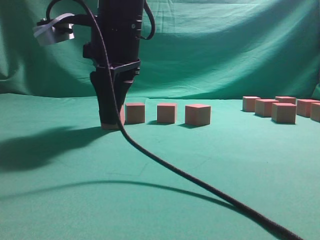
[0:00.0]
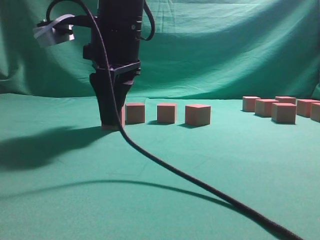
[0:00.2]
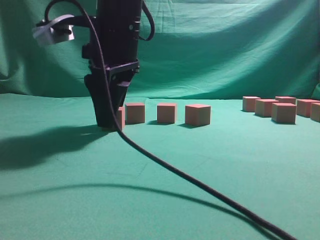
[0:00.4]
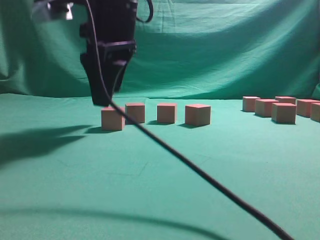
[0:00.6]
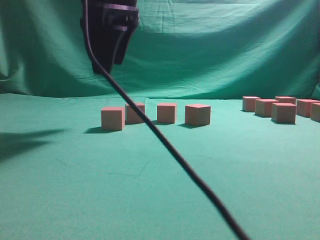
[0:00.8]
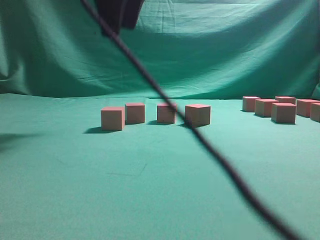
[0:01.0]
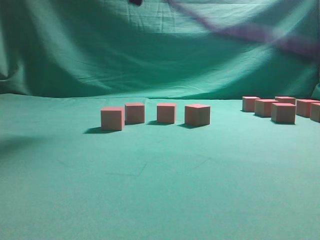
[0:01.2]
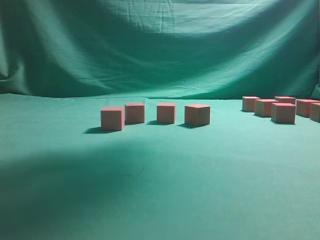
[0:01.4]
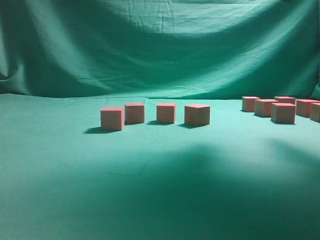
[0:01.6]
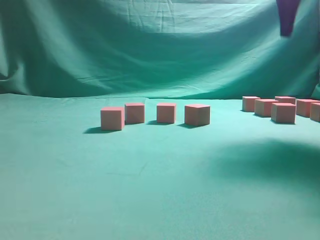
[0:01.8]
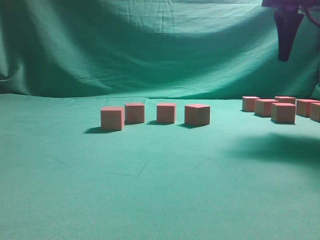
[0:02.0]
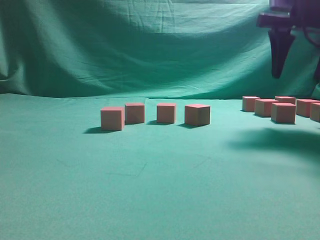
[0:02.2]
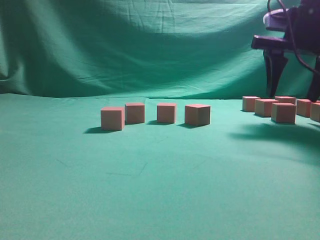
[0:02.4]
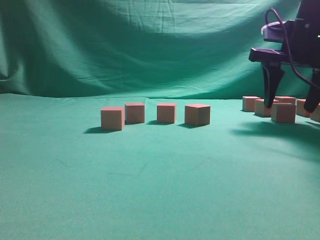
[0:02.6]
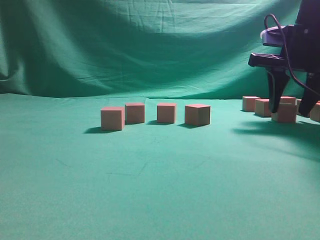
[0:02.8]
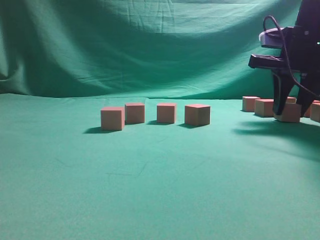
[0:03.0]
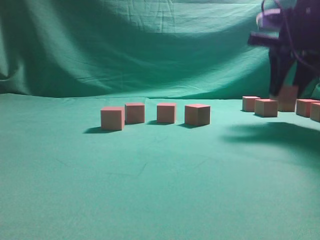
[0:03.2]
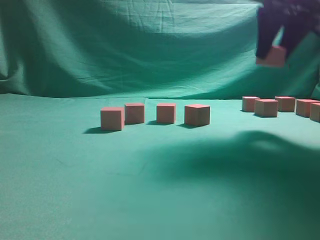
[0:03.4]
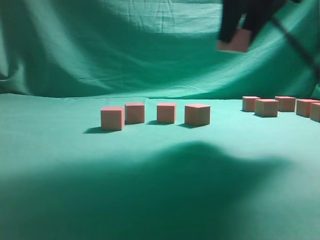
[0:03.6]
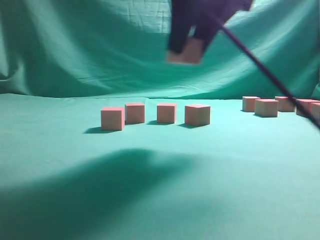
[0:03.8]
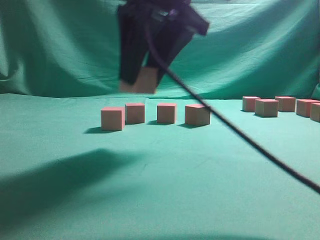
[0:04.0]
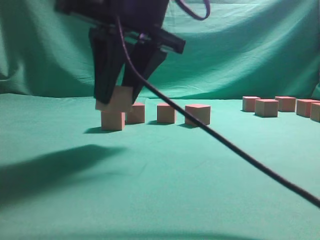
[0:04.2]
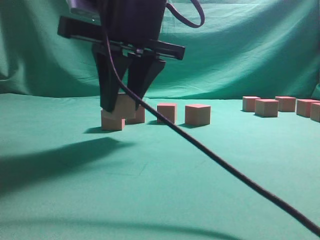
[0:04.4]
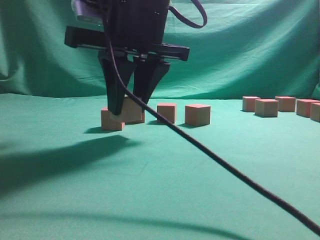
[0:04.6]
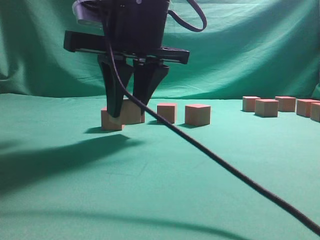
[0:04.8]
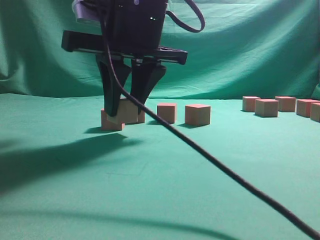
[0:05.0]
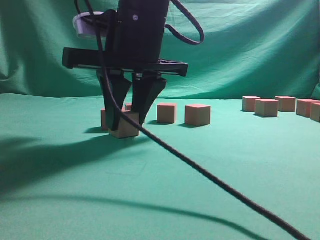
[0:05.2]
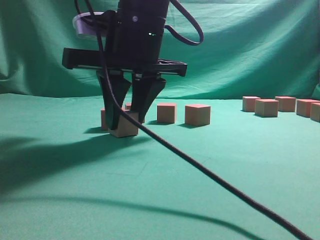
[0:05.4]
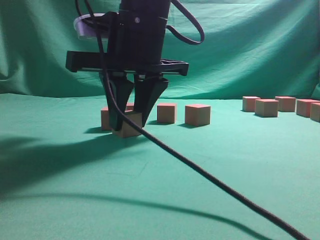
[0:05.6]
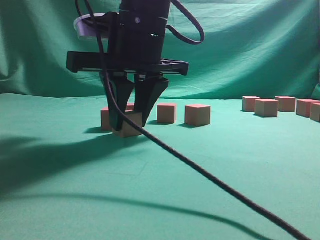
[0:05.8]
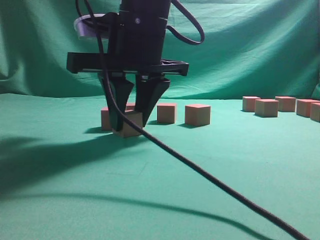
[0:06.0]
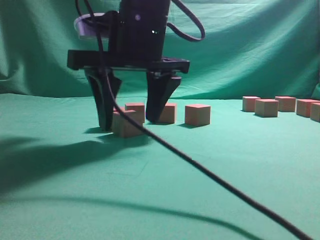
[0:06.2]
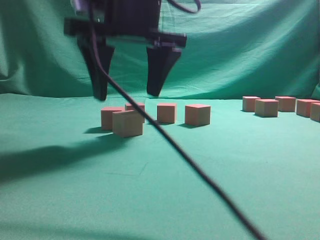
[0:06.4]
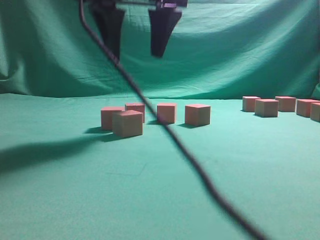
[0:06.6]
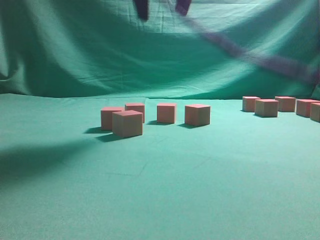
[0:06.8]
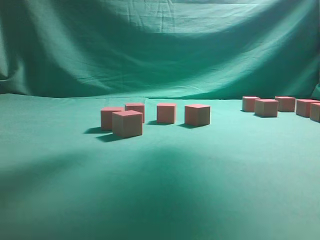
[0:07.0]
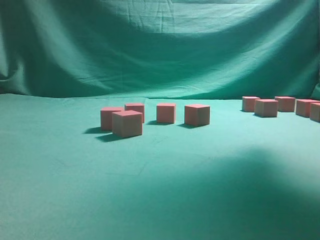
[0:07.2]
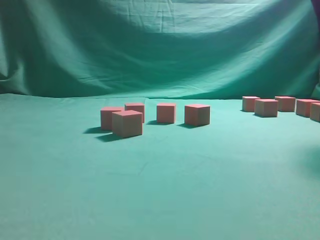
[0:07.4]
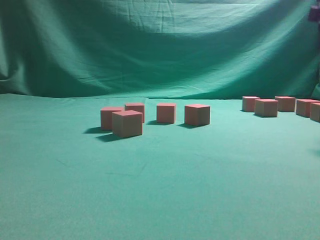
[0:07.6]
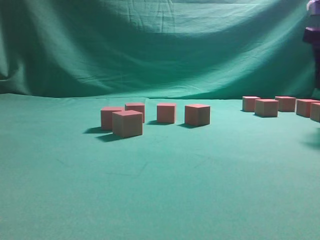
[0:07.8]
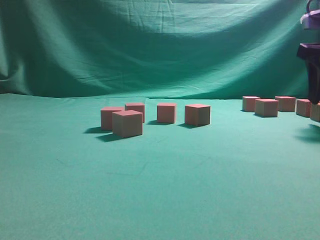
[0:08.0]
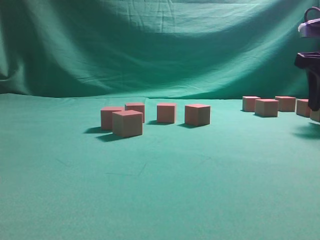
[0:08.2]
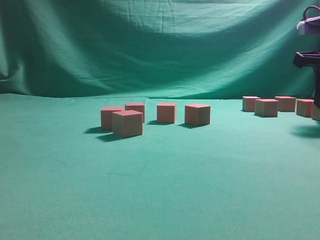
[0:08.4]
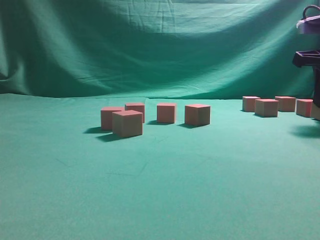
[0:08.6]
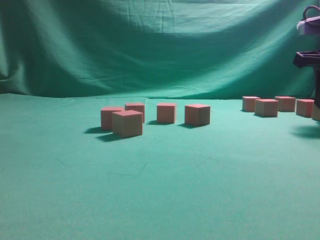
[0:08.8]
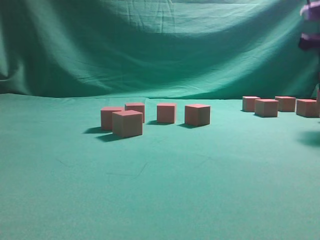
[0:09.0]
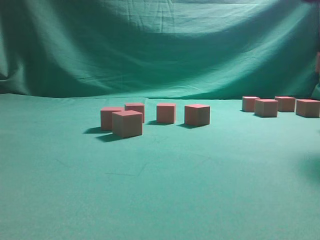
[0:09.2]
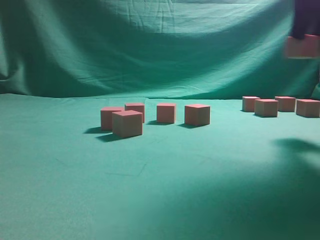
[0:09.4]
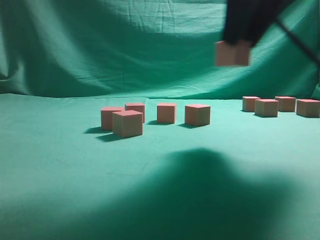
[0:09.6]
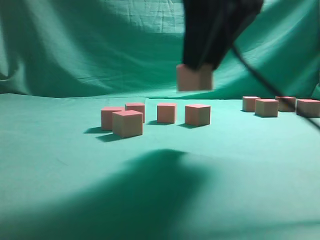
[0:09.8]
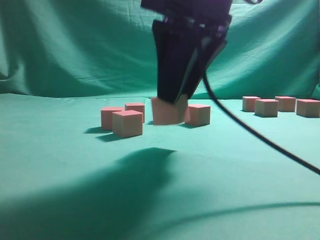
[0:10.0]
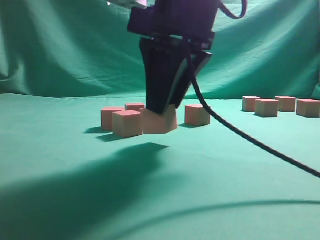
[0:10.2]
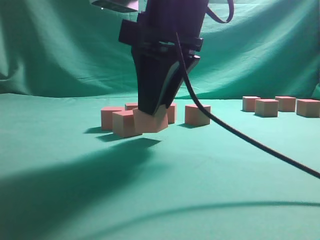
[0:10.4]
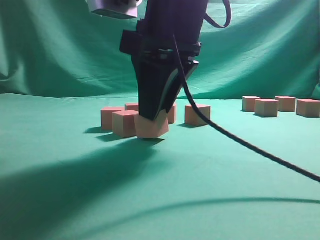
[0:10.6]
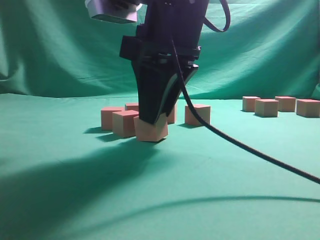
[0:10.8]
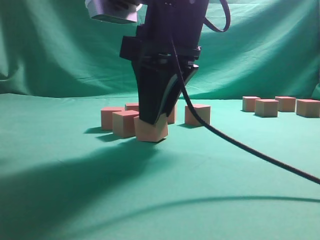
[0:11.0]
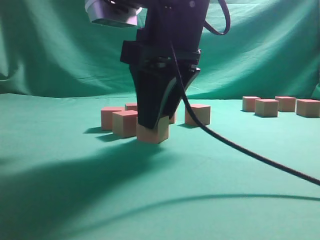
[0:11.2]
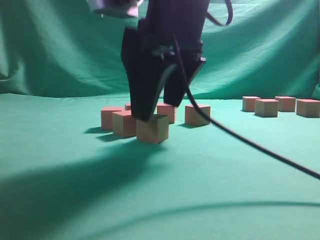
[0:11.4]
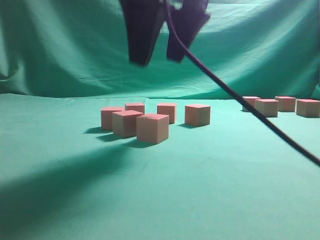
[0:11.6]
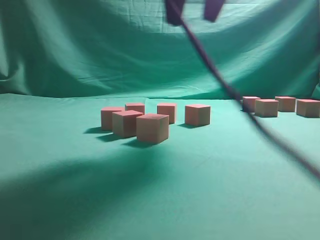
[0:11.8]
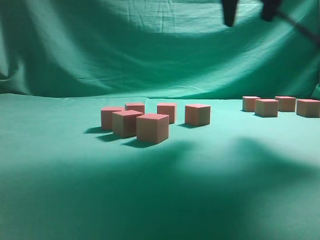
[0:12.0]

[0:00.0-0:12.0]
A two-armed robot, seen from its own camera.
Task of the whole recording: pick up the multiple cubes in two columns one by one and place them in another position on the table.
Step, 0:01.0 to 0:03.0: Pick up the block on the table.
Step, 0:03.2 to 0:06.4: Place the block at the correct position to assemble the letter S.
Step, 0:06.8 to 0:08.8: Pick up the block on the table.
Step, 0:09.2 to 0:11.4: Place the block at the correct position to assemble the letter S.
0:00.0 to 0:01.6: The right gripper goes approximately 30 cm to the right and upward, and opens its fingers.
0:01.6 to 0:03.0: The right gripper travels downward by approximately 20 cm, and closes its fingers.
0:03.0 to 0:04.4: The right gripper heads to the left and backward, covering approximately 25 cm.
0:04.4 to 0:06.0: There are only small adjustments of the grippers.
0:06.0 to 0:07.6: The right gripper goes some 30 cm to the right, and opens.
0:07.6 to 0:09.0: The right gripper moves approximately 5 cm, and closes up.
0:09.0 to 0:10.4: The right gripper heads to the left and backward, covering roughly 30 cm.
0:10.4 to 0:12.0: The right gripper moves upward, to the right and forward, some 15 cm, and opens up.

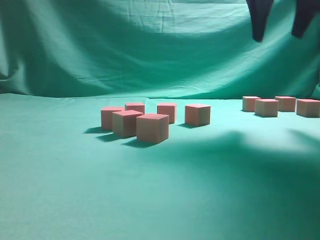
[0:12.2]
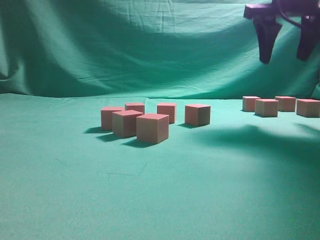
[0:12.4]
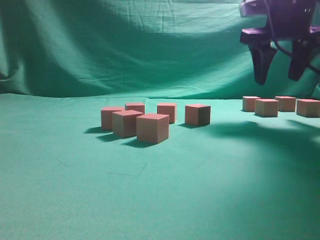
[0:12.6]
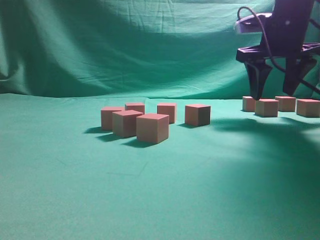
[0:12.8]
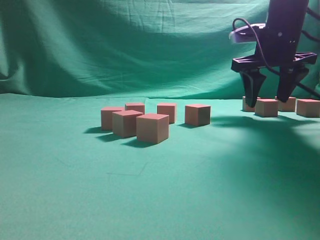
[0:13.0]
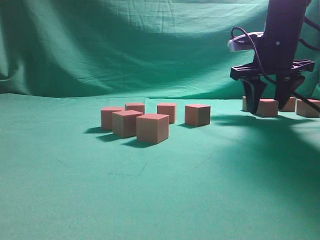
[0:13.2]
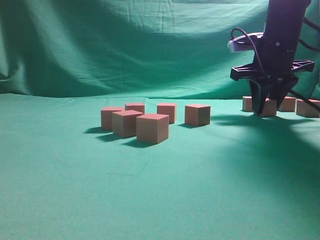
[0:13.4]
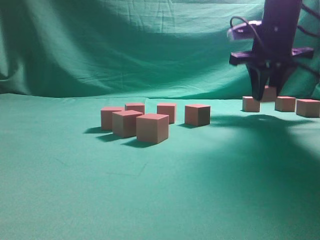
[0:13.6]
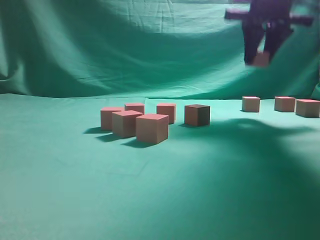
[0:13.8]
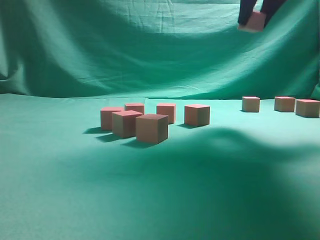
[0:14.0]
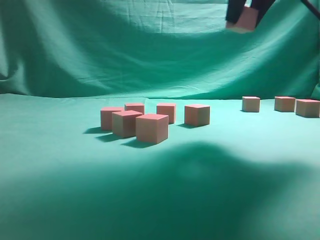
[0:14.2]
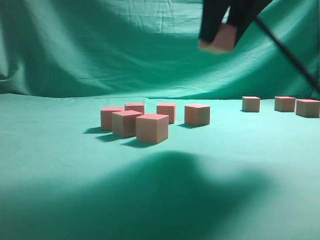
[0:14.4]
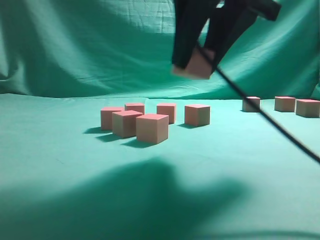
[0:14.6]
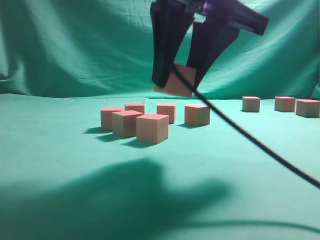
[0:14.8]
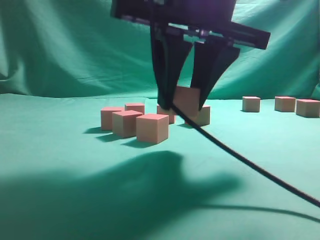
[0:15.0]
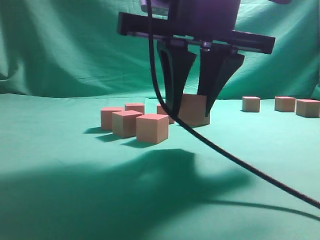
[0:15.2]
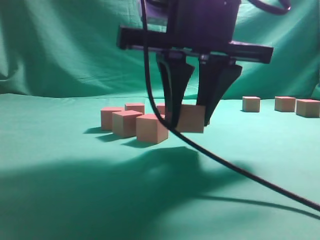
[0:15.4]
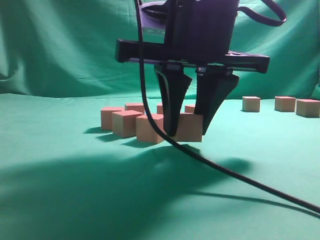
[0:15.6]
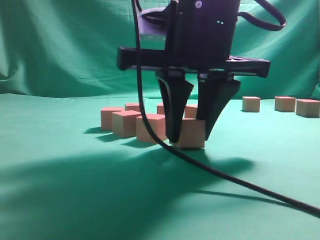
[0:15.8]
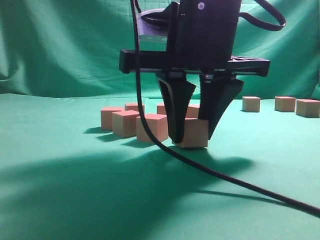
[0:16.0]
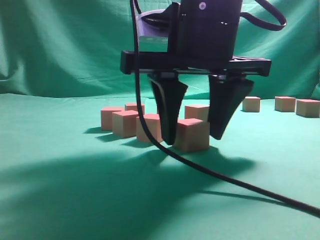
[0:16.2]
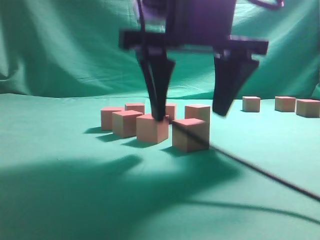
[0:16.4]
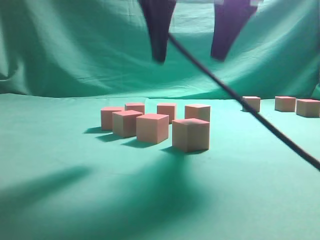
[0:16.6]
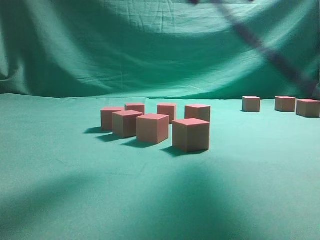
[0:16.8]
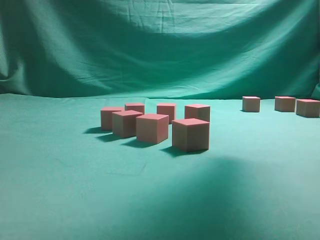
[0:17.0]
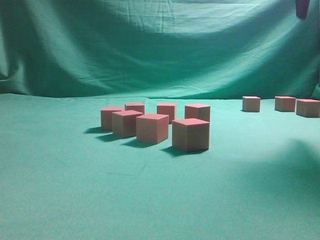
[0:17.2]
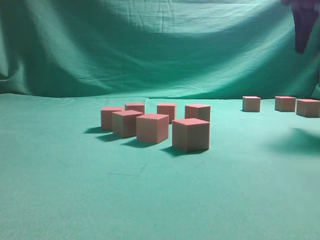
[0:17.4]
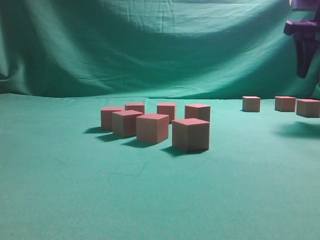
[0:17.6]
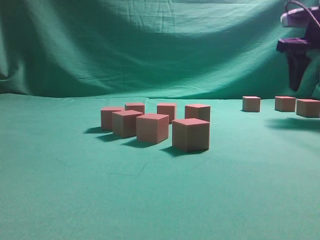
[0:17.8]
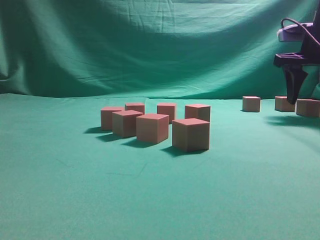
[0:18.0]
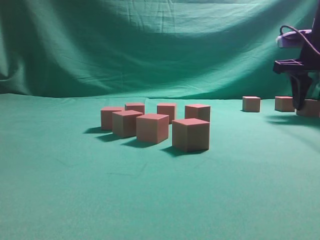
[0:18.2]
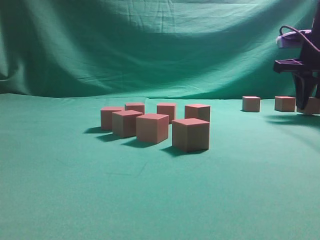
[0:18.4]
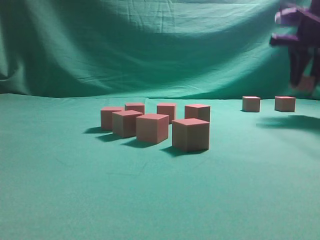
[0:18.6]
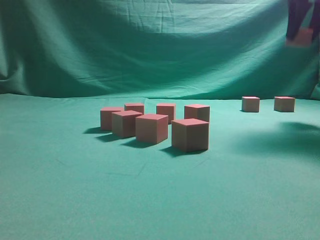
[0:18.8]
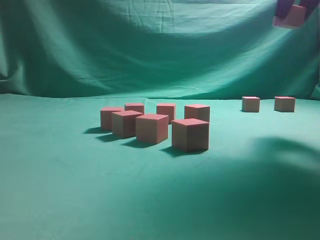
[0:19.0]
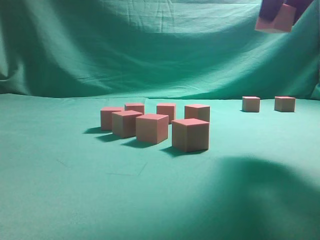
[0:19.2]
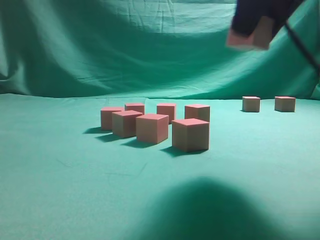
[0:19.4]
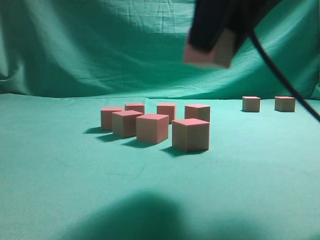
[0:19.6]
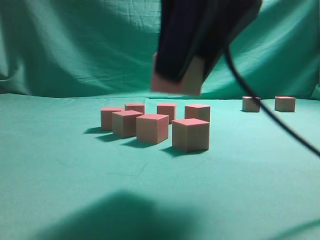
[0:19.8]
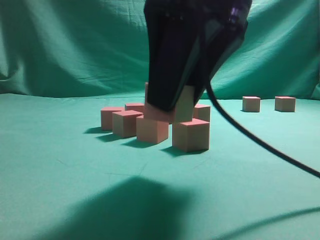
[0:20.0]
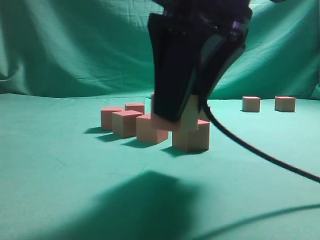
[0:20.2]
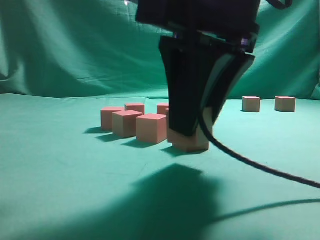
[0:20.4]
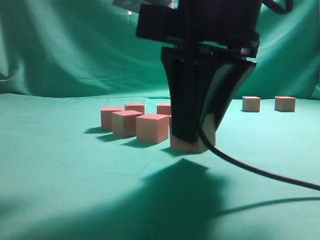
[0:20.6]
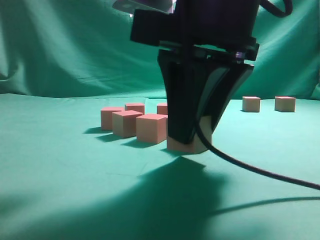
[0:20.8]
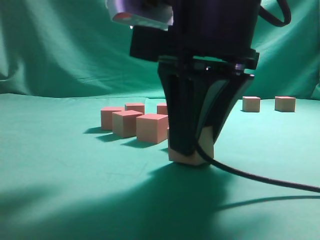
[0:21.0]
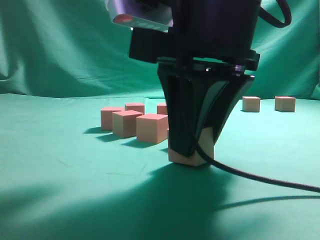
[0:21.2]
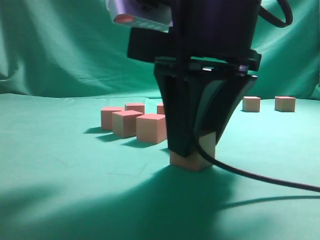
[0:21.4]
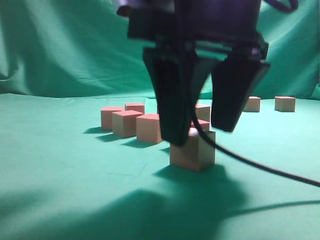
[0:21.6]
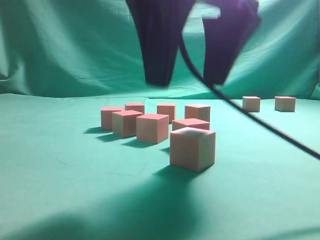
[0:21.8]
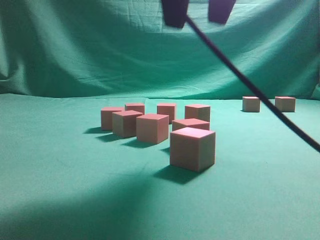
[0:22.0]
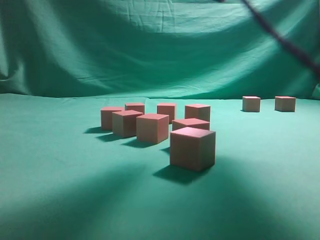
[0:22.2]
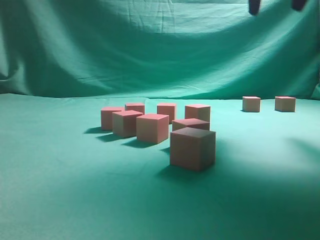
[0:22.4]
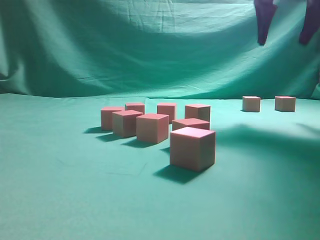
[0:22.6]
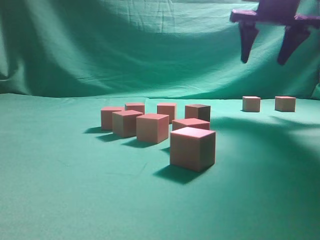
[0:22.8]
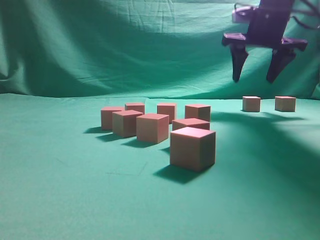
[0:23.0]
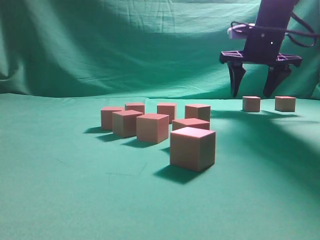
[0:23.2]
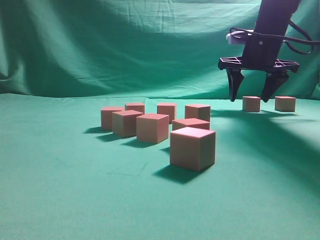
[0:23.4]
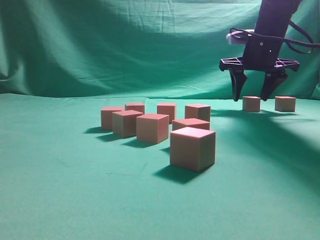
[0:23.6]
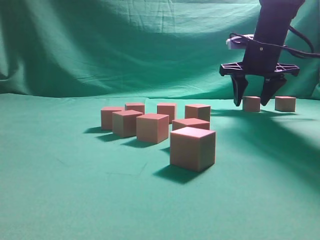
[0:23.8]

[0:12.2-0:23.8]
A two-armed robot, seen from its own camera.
Task of the whole recording: pick up the multiple cubes in two columns one by one and place them in another position on the table.
Step, 0:12.2 to 0:13.4: Pick up the block on the table.
Step, 0:13.8 to 0:16.4: Place the block at the correct position to assemble the letter S.
Step, 0:16.6 to 0:18.4: Pick up the block on the table.
Step, 0:18.6 to 0:21.6: Place the block at the correct position to assemble the letter S.
0:12.2 to 0:13.6: The right gripper moves downward and forward, some 15 cm, and closes.
0:13.6 to 0:15.0: The right gripper shifts about 25 cm backward and to the left.
0:15.0 to 0:16.6: The right gripper opens its fingers.
0:16.6 to 0:18.0: The right gripper travels to the right and forward by about 30 cm.
0:18.0 to 0:19.4: The right gripper travels backward, to the left and upward by some 25 cm, and closes up.
0:19.4 to 0:21.0: The right gripper goes about 15 cm downward and to the left.
0:21.0 to 0:22.4: The right gripper heads upward, forward and to the right, covering some 25 cm, and opens.
0:22.4 to 0:23.8: The right gripper heads forward and downward, covering approximately 20 cm.
